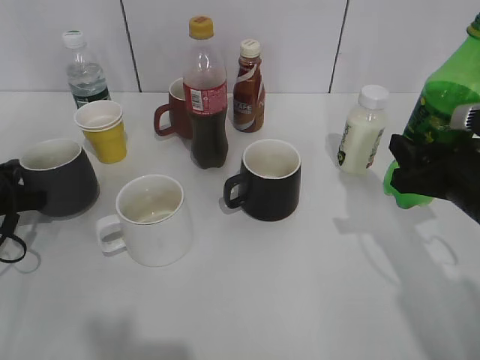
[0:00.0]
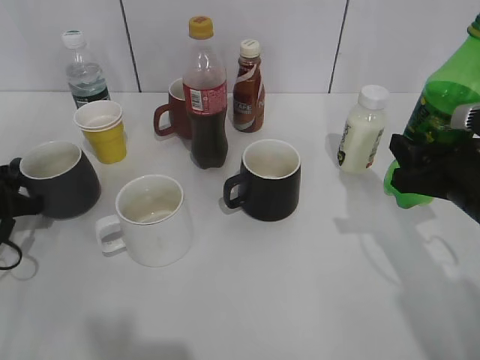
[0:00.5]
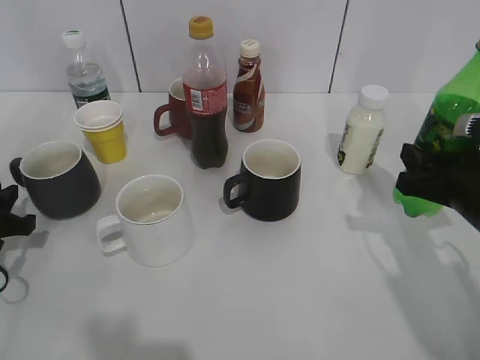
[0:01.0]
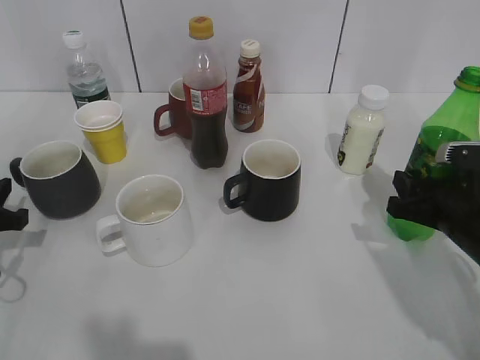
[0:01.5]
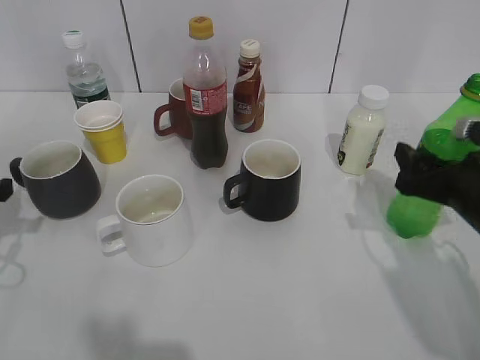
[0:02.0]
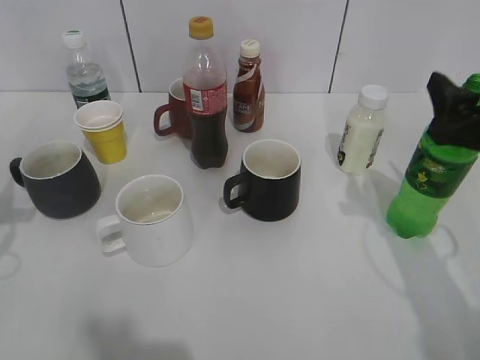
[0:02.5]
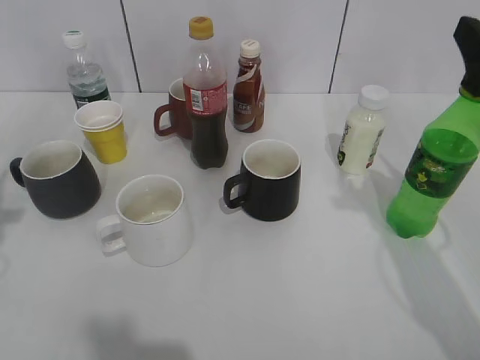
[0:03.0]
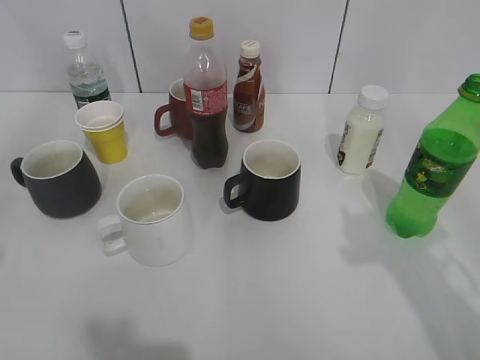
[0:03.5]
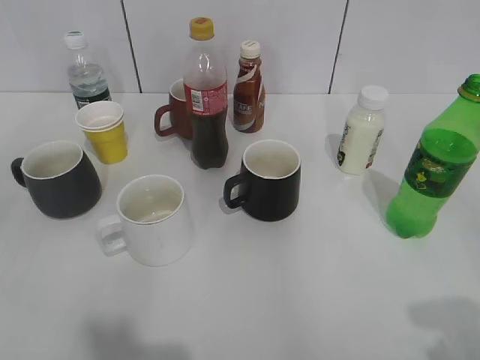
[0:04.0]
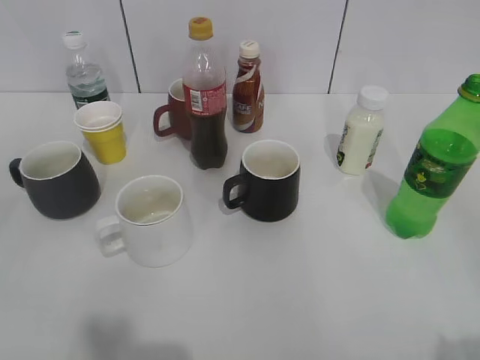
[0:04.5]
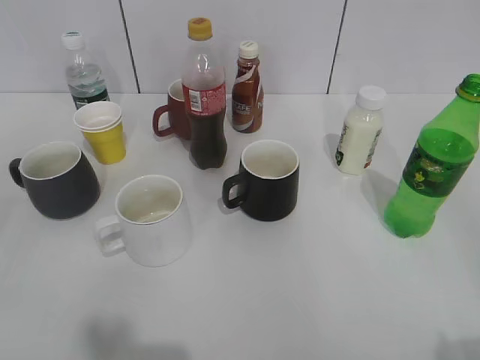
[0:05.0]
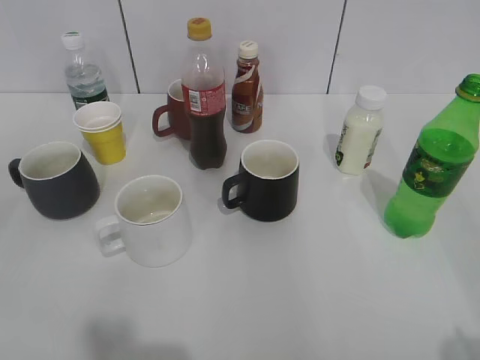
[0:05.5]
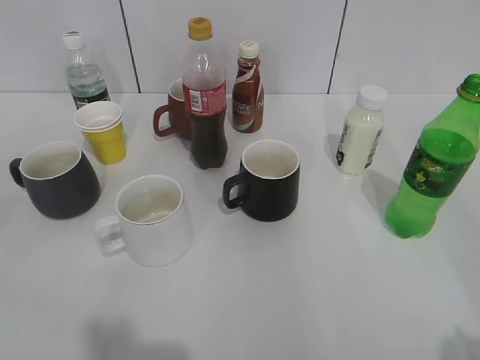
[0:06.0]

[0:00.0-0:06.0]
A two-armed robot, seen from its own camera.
Step, 0:01.0 to 0:02.0: Place the sprite bottle on the table with right gripper.
0:00.0 to 0:02.0: The left gripper heads upward, covering some 5 cm, and opens. Meanwhile the right gripper opens.
0:02.0 to 0:04.0: The grippers both shift backward and upward by roughly 25 cm.
